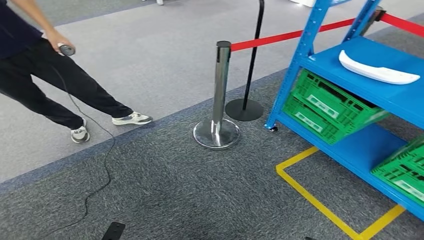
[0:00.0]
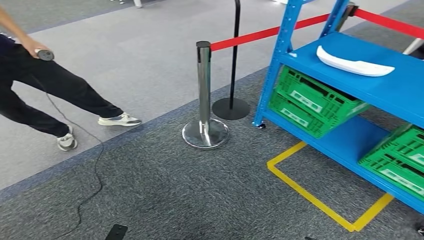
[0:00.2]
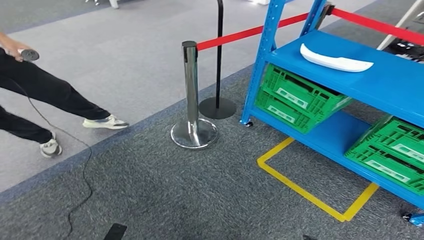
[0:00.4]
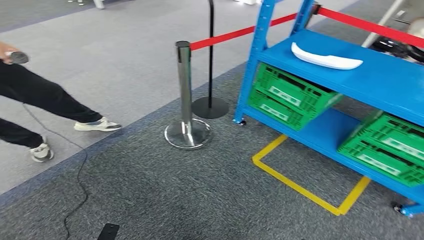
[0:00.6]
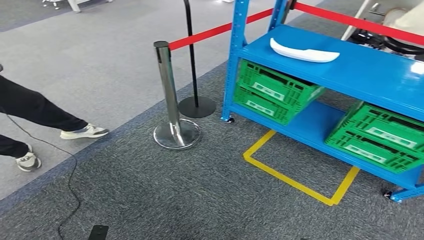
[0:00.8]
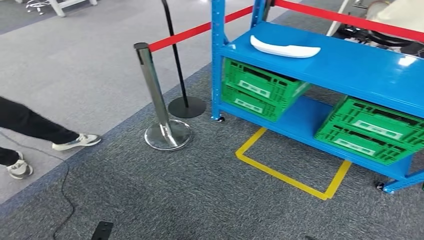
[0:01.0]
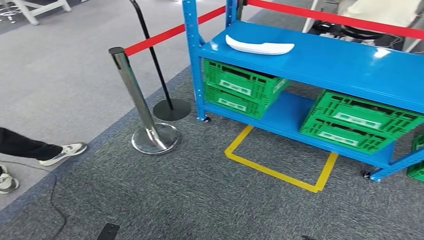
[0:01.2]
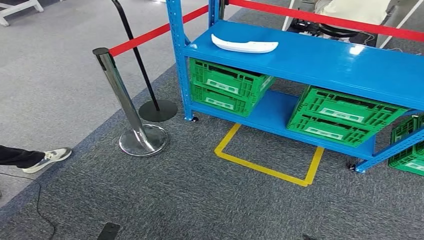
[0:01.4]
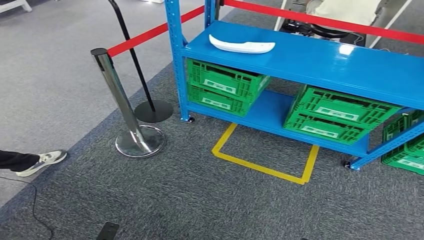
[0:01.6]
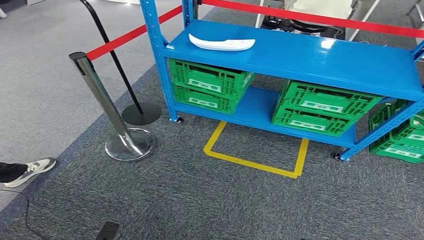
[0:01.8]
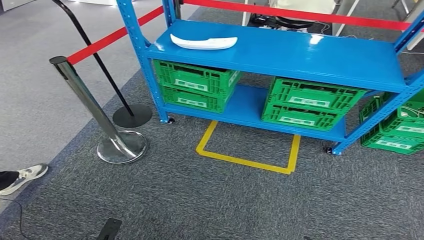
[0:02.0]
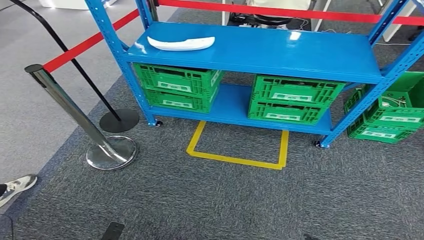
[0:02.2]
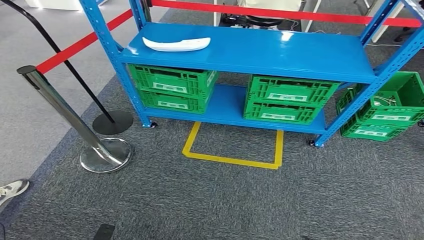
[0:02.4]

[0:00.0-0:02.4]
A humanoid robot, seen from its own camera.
Step, 0:00.0 to 0:02.4: Move to the initial position of the workbench.
